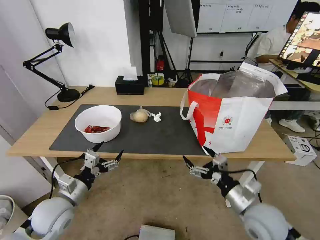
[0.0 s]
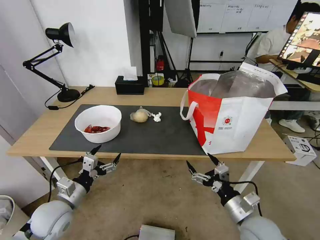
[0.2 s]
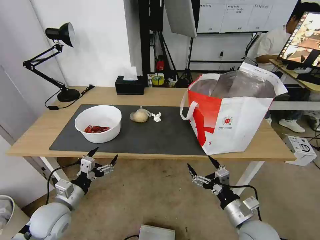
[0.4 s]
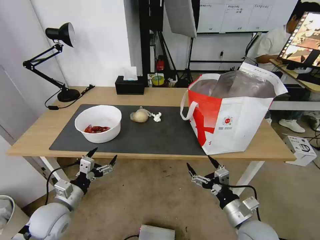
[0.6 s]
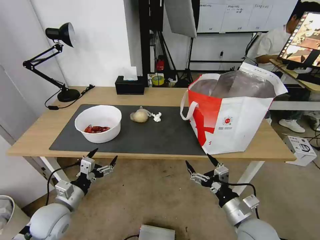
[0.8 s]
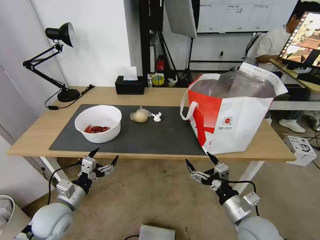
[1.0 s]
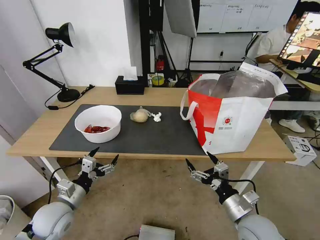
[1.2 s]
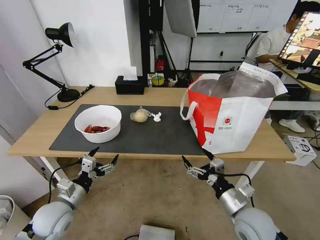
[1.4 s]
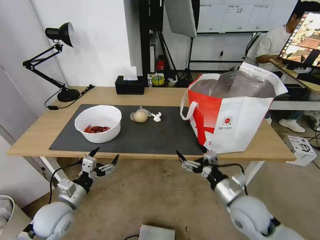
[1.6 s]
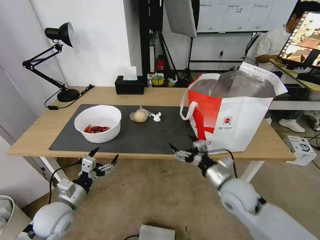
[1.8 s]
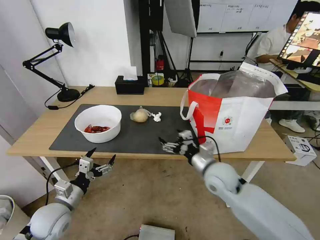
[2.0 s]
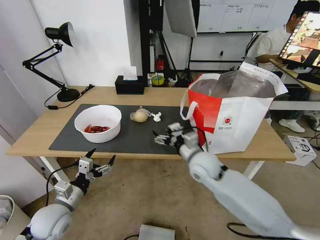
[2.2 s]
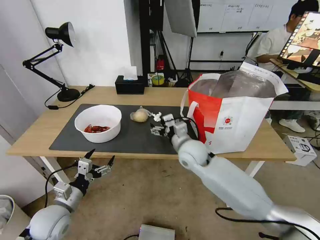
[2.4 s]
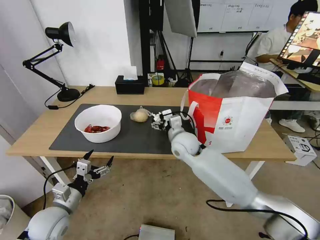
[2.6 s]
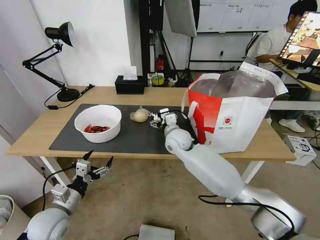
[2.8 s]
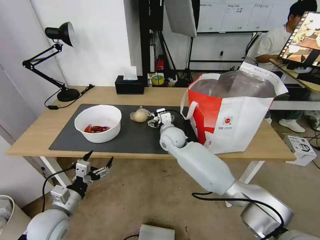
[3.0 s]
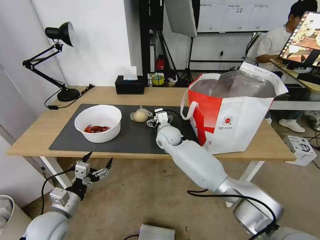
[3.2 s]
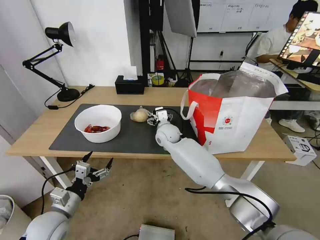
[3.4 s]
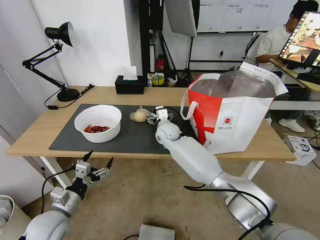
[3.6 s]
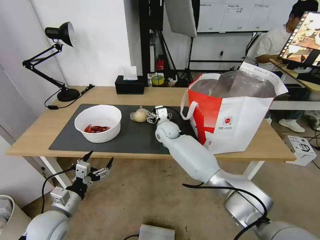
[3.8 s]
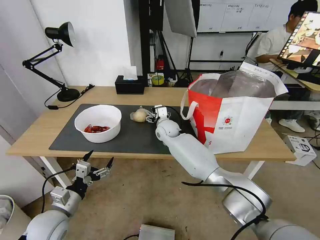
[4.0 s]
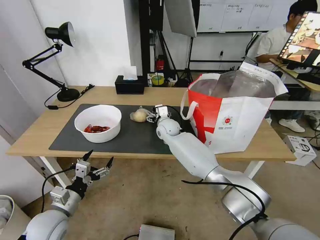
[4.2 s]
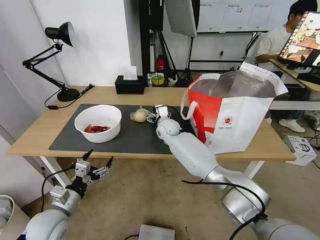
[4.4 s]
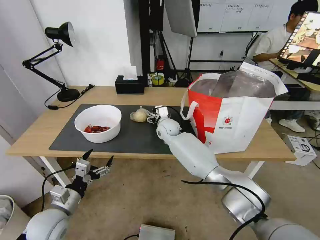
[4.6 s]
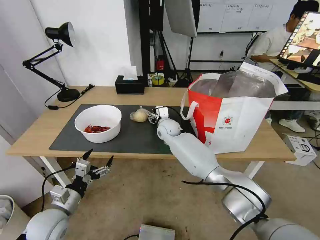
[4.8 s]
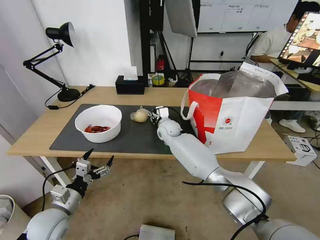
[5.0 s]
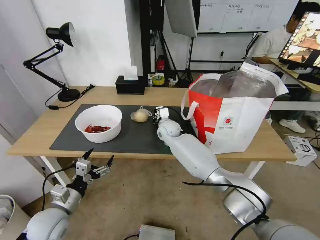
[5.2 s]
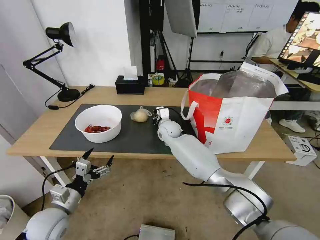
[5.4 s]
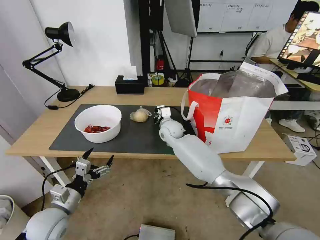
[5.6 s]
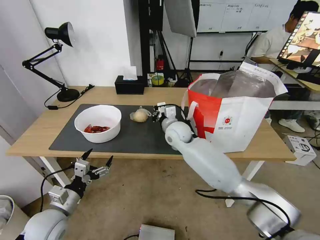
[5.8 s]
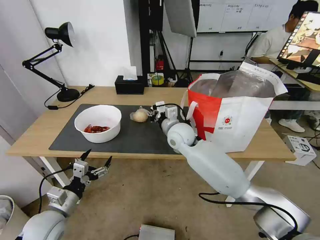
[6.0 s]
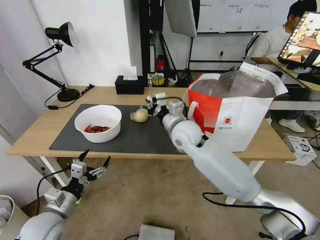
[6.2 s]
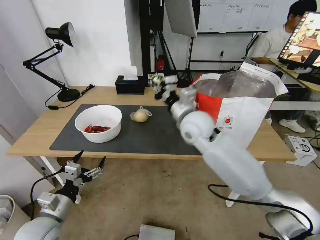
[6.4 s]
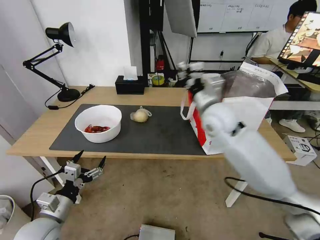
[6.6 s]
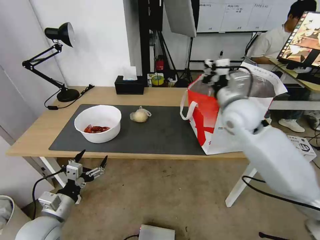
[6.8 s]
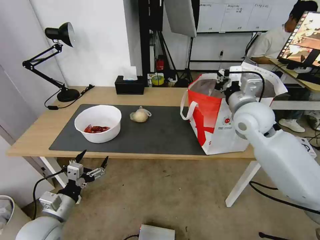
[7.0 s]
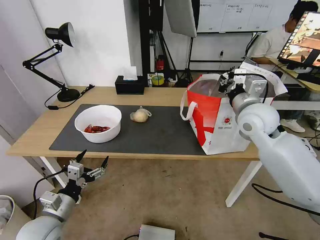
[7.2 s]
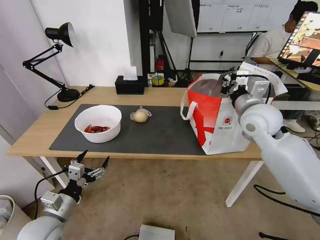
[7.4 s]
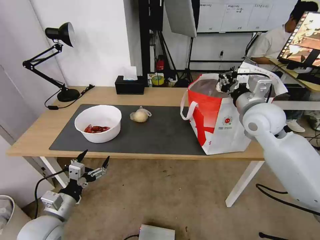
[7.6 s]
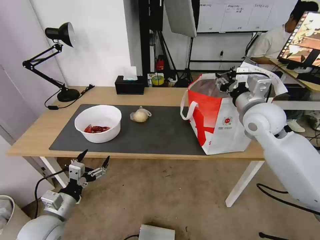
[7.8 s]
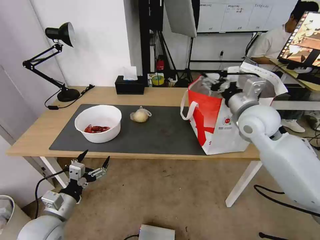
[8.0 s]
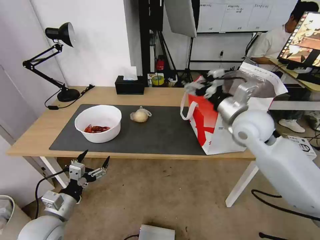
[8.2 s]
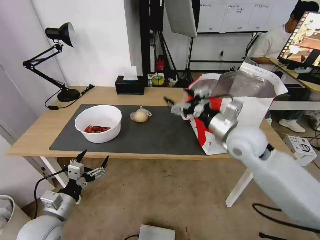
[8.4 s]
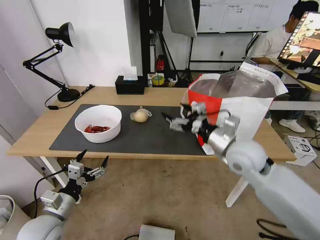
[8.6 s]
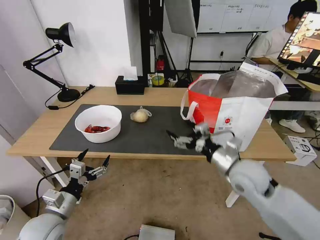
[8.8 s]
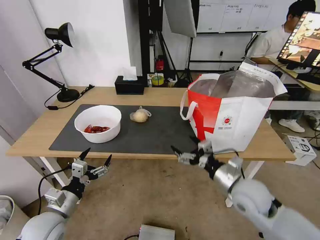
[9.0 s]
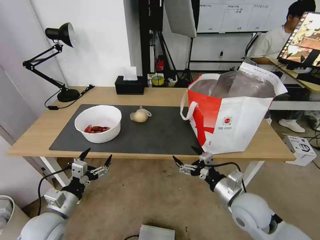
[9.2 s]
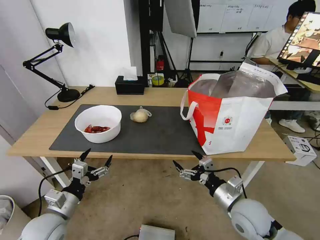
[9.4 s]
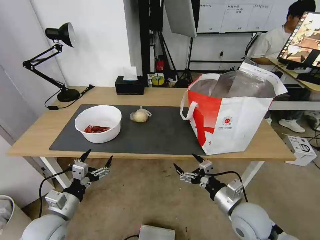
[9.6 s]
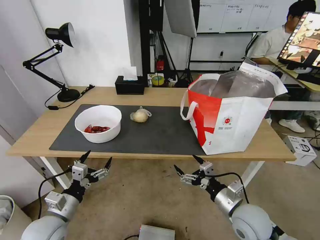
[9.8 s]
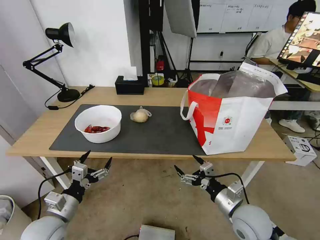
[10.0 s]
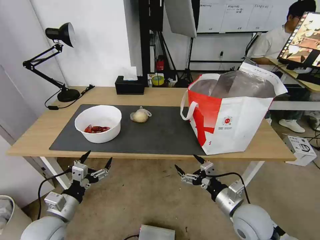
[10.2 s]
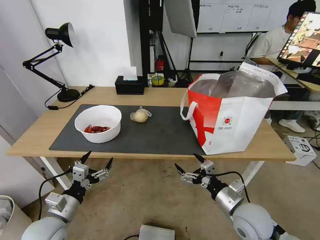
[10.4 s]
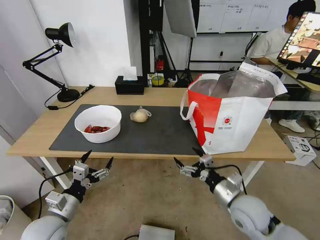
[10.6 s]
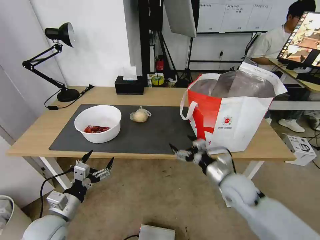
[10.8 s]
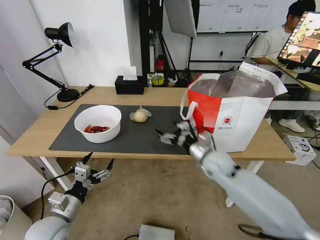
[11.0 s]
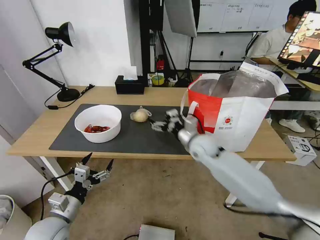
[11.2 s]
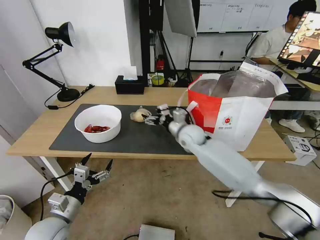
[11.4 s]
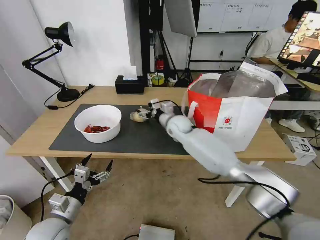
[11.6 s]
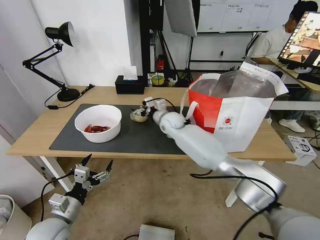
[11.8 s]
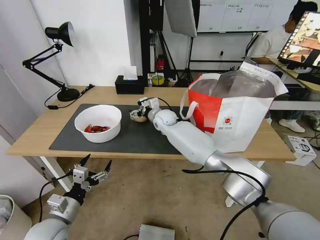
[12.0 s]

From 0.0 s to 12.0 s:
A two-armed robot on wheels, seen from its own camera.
Task of the whole recording: Pick up the trash from the table and place it into the takeout bag.
From 0.0 s to 1.6 s: The grippers stay close to where they were, moving slightly.
From 1.6 s to 3.0 s: The right gripper heads forward and to the left, covering approximately 35 cm.
From 3.0 s to 4.4 s: The right gripper is displaced forward by roughly 5 cm.
From 4.4 s to 6.0 s: The right gripper is displaced backward and upward by about 10 cm, and closes.
From 6.0 s to 7.6 s: The right gripper shifts some 25 cm to the right and upward.
From 7.6 s to 9.0 s: The right gripper is displaced downward and backward by some 20 cm, and opens its fingers.
From 9.0 s to 10.4 s: The right gripper heads backward and downward, covering about 5 cm.
From 10.4 s to 12.0 s: The right gripper shifts approximately 40 cm forward and to the left.

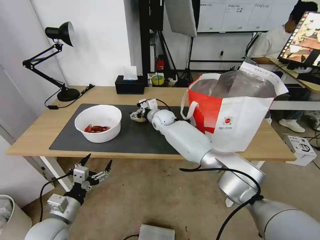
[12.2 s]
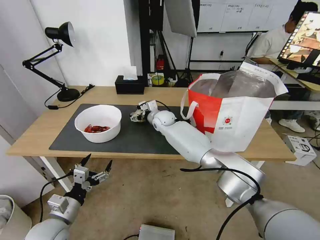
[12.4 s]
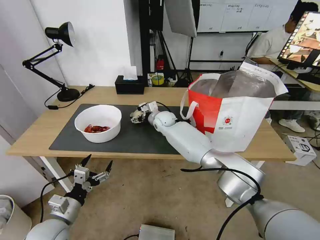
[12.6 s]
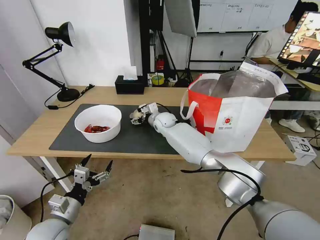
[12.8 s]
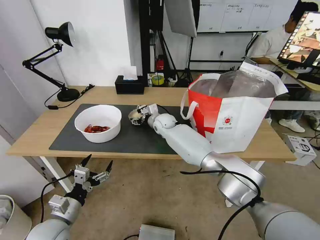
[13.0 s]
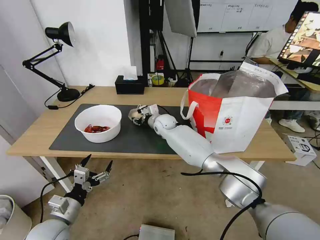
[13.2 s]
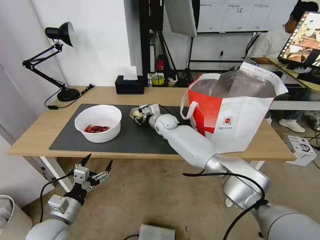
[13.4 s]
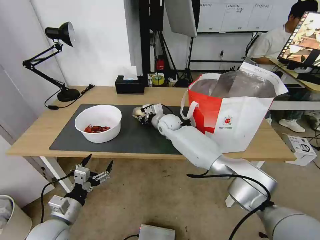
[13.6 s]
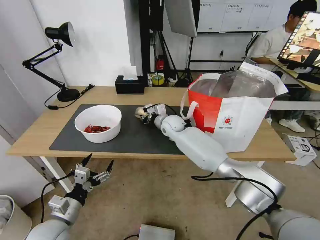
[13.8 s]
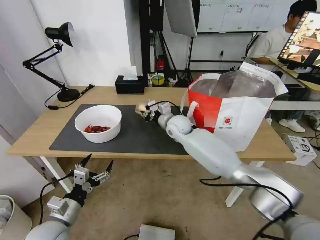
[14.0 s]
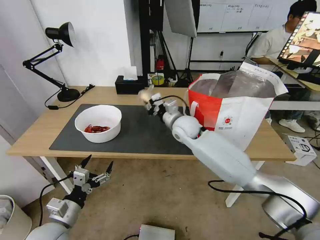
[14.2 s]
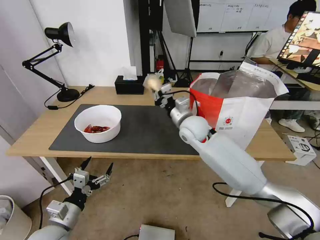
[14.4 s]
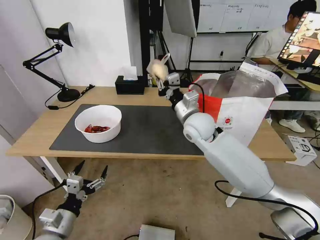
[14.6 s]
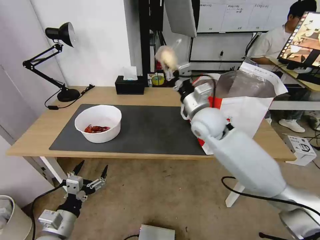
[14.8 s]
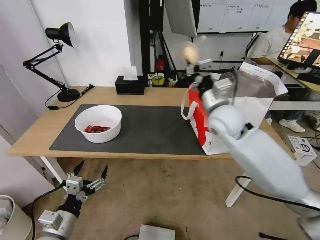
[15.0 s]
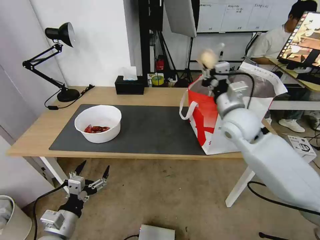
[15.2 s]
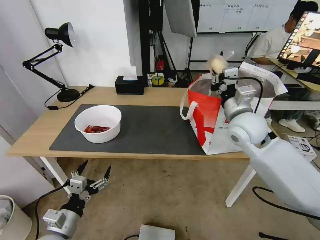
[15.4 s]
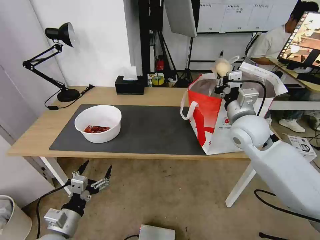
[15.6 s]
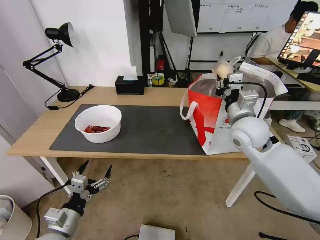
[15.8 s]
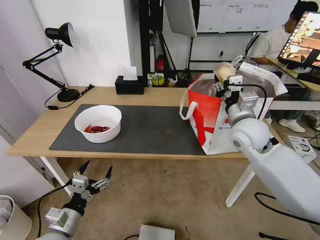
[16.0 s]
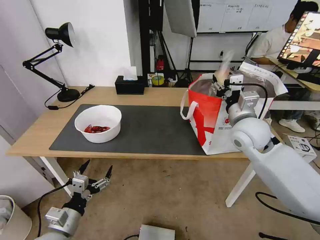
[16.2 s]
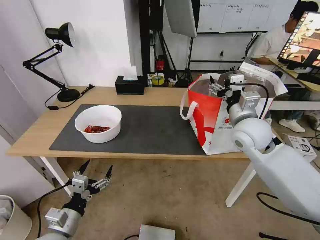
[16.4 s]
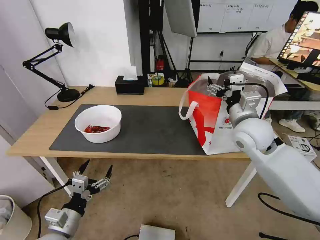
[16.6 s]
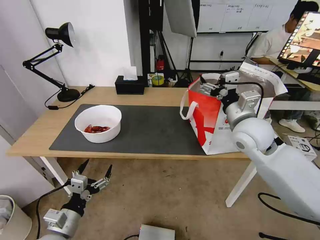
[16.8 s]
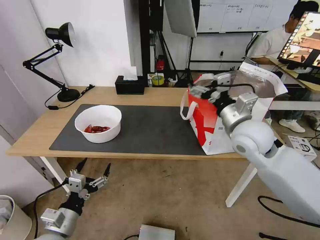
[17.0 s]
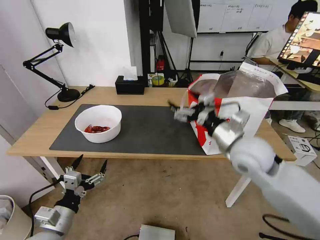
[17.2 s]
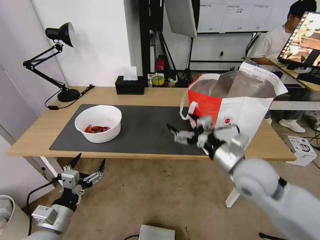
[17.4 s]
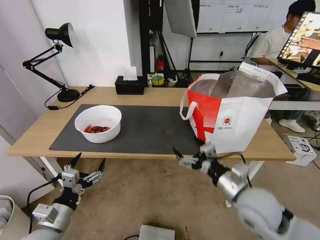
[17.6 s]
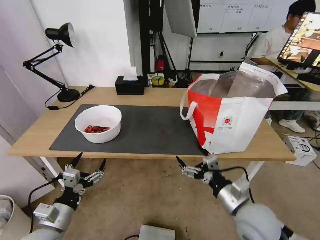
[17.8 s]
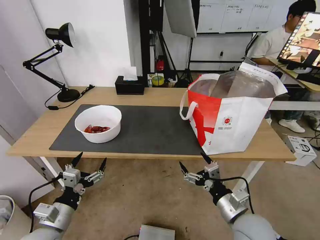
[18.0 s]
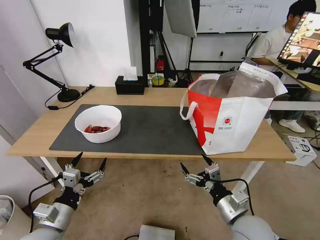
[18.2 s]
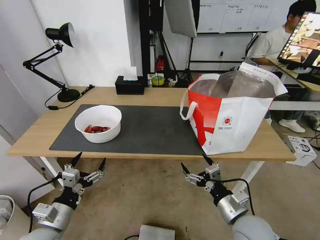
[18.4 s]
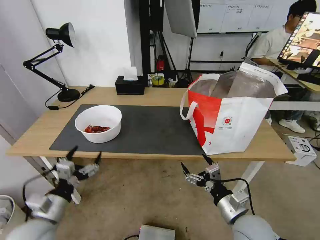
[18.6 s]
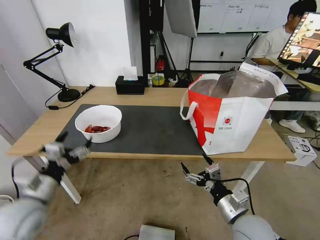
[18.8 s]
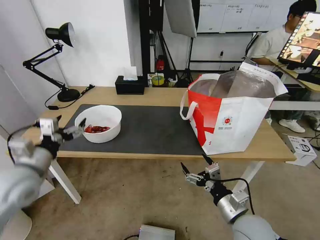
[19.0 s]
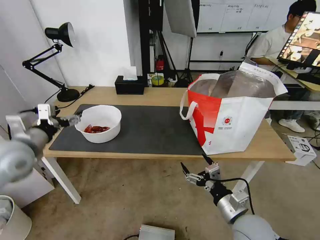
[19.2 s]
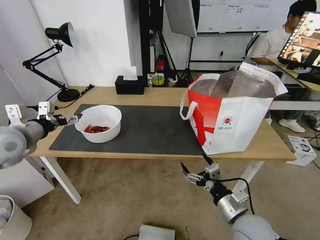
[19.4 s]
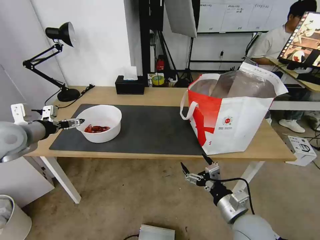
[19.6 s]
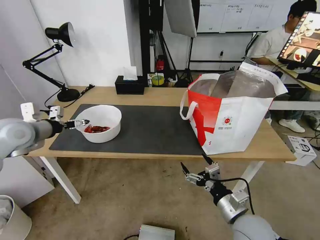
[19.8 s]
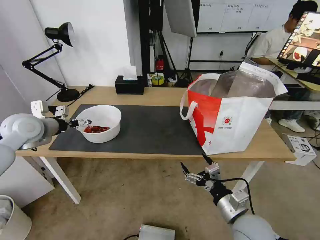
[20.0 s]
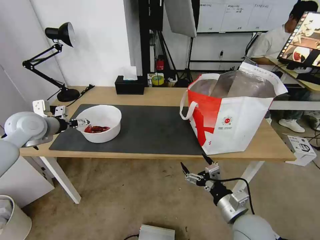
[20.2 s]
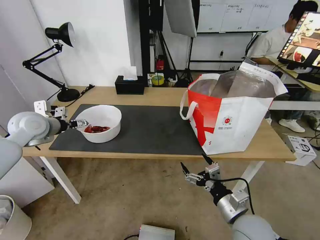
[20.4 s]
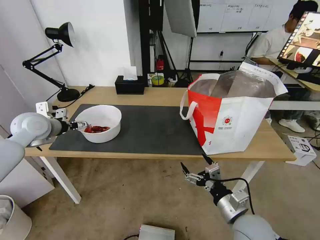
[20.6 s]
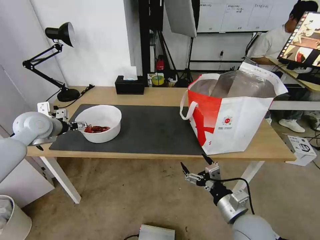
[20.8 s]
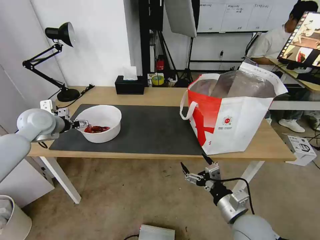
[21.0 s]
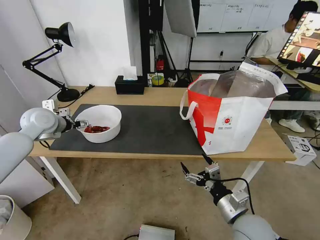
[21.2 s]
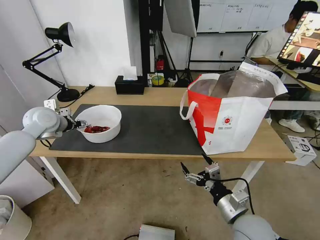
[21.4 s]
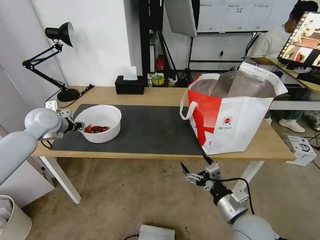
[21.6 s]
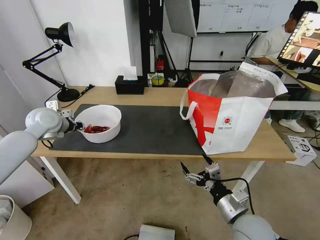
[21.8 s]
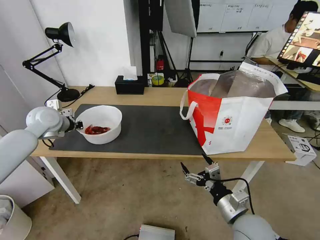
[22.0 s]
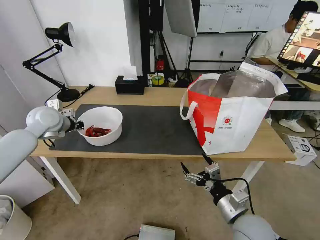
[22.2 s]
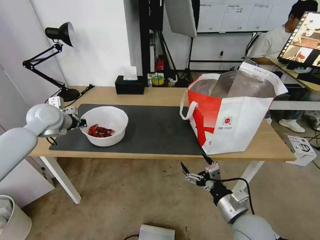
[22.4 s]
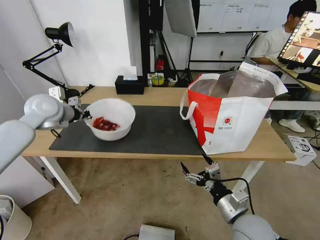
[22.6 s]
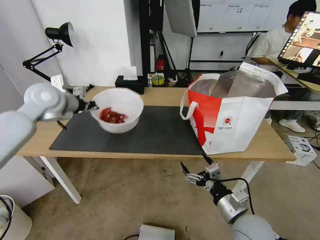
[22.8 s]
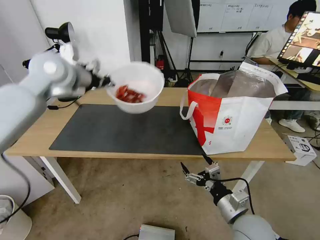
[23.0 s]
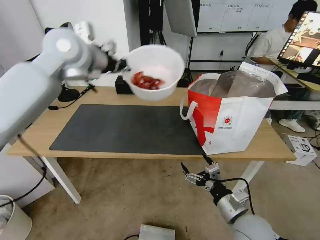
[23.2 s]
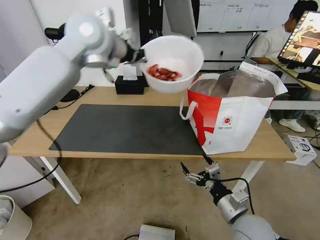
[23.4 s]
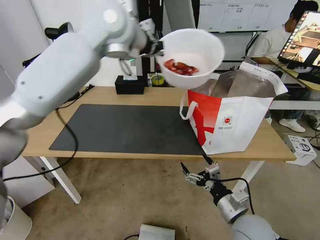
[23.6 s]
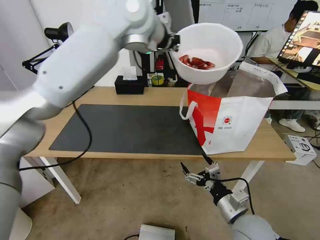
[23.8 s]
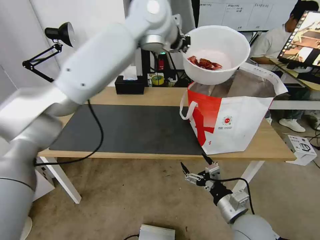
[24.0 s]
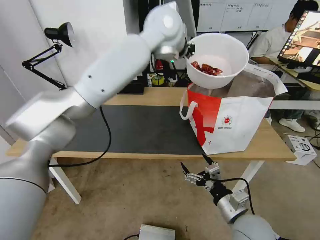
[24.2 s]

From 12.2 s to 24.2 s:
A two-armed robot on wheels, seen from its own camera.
Task of the whole recording: Pick up the trash from the table and place it into the takeout bag.
From 12.2 s to 13.8 s: The right gripper changes place by some 5 cm, and closes.
From 13.8 s to 15.2 s: The right gripper is displaced to the right, backward and upward by roughly 25 cm.
From 15.2 s to 16.6 s: The right gripper opens up.
From 16.6 s to 18.2 s: The right gripper shifts roughly 25 cm backward and downward.
From 18.2 s to 19.8 s: The left gripper goes roughly 30 cm forward, upward and to the left.
From 19.8 s to 21.2 s: The left gripper travels forward by approximately 5 cm.
From 21.2 s to 22.6 s: The left gripper shifts about 5 cm upward, and closes up.
From 22.6 s to 24.2 s: The left gripper shifts roughly 40 cm to the right and upward.
